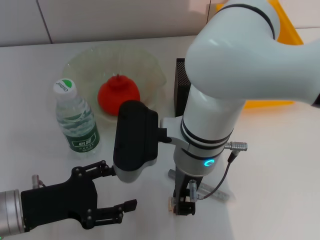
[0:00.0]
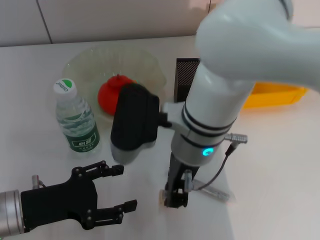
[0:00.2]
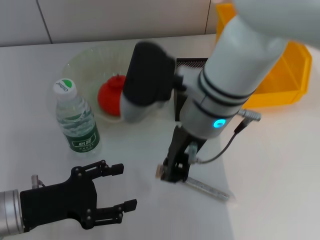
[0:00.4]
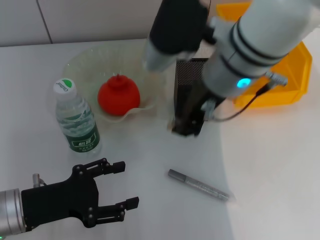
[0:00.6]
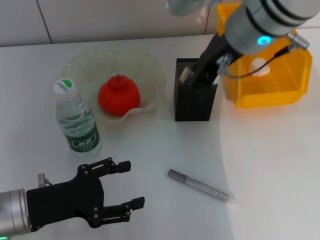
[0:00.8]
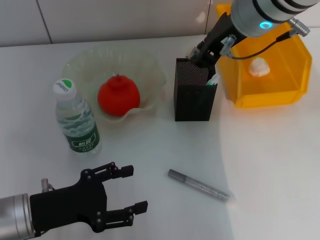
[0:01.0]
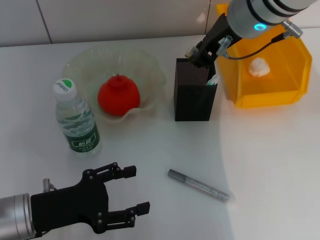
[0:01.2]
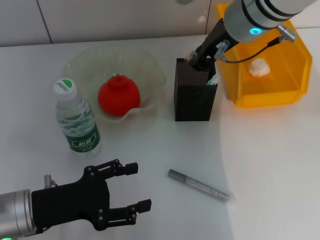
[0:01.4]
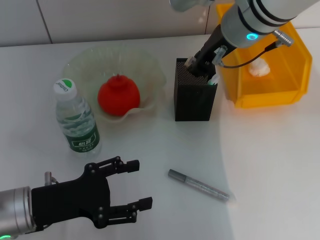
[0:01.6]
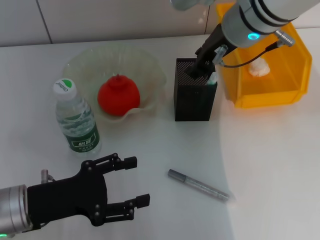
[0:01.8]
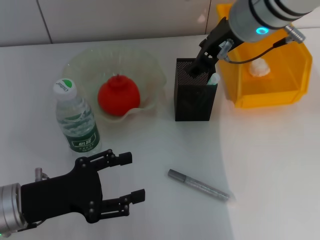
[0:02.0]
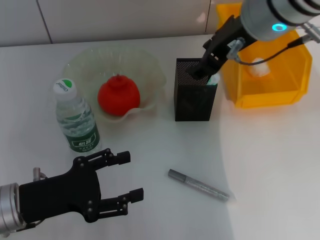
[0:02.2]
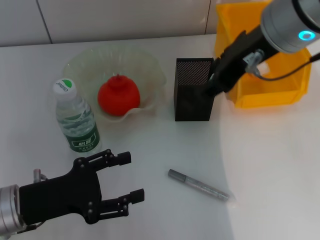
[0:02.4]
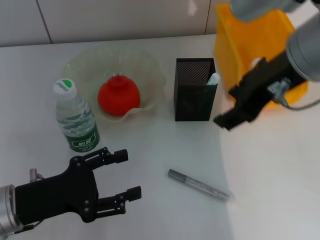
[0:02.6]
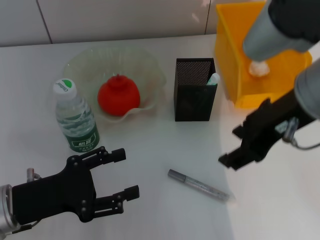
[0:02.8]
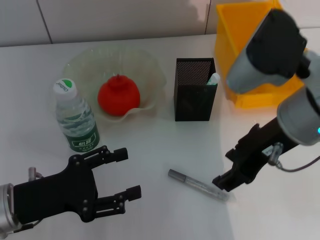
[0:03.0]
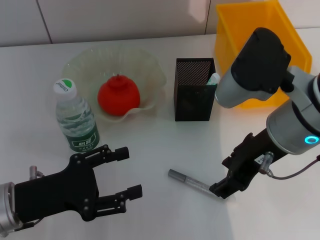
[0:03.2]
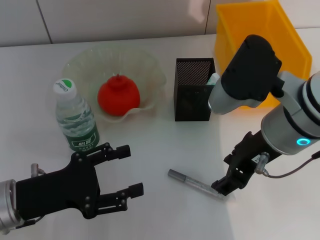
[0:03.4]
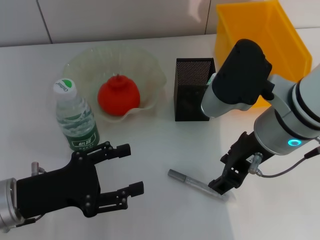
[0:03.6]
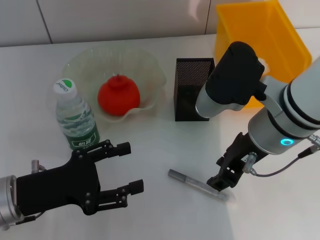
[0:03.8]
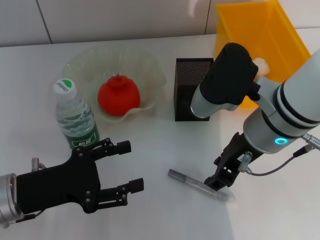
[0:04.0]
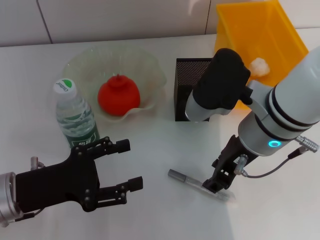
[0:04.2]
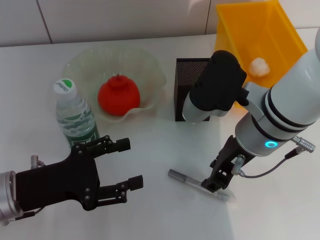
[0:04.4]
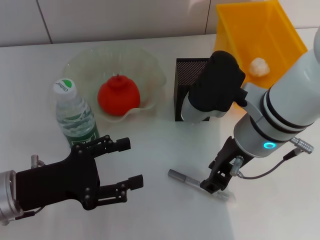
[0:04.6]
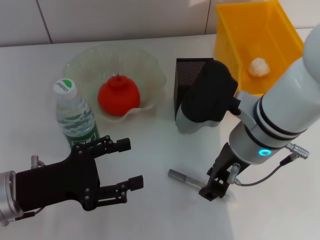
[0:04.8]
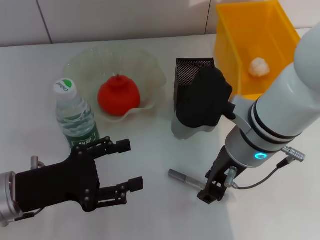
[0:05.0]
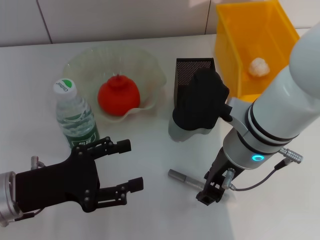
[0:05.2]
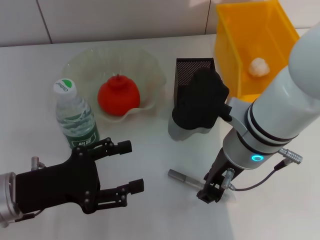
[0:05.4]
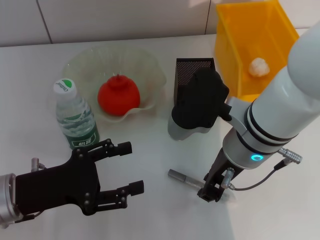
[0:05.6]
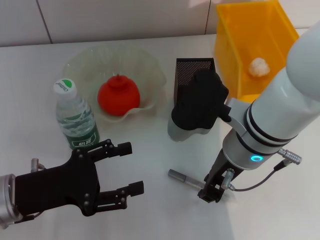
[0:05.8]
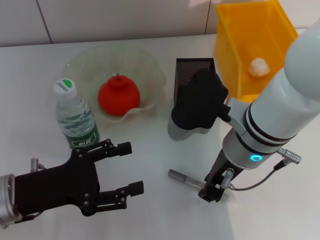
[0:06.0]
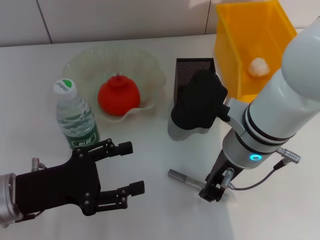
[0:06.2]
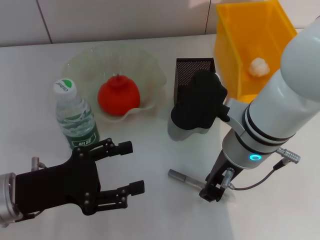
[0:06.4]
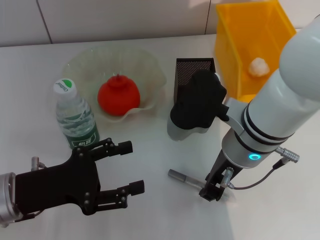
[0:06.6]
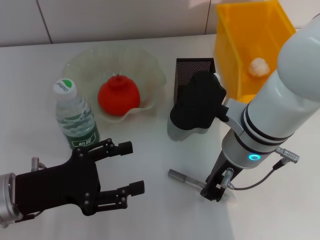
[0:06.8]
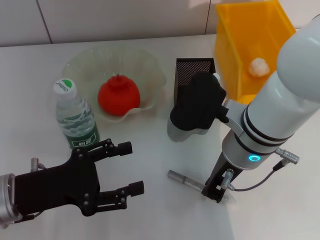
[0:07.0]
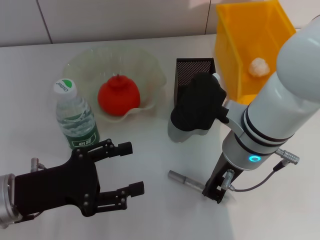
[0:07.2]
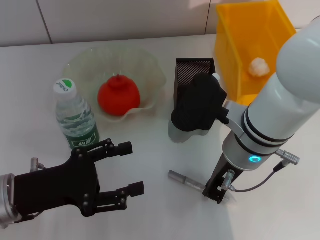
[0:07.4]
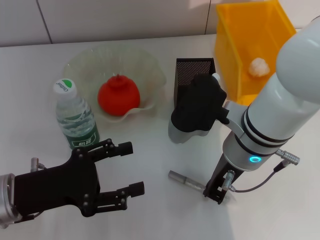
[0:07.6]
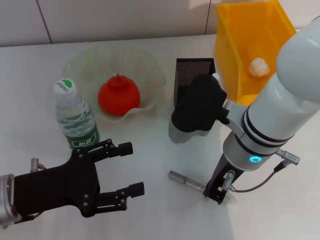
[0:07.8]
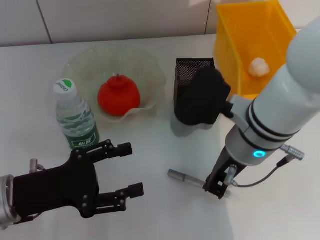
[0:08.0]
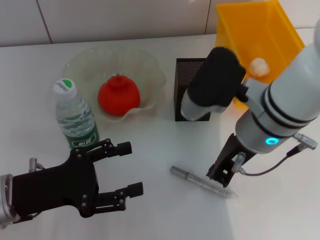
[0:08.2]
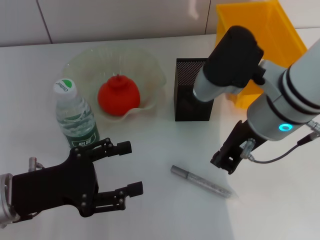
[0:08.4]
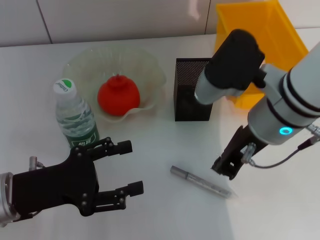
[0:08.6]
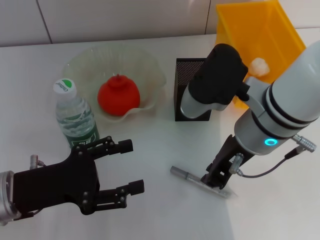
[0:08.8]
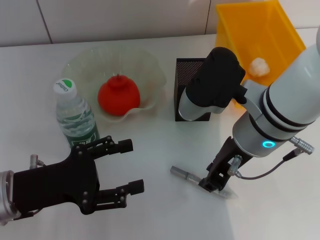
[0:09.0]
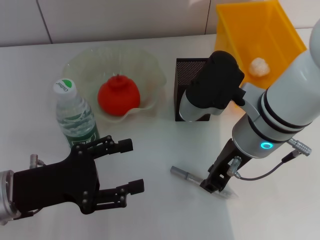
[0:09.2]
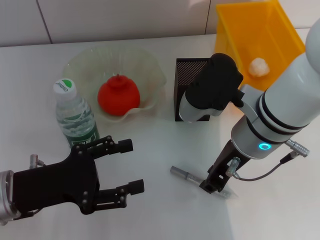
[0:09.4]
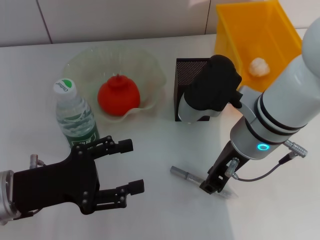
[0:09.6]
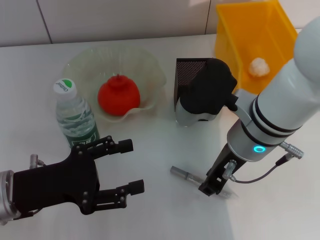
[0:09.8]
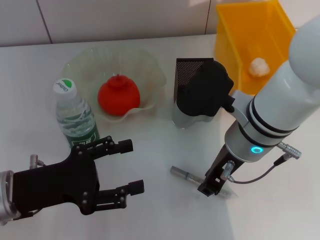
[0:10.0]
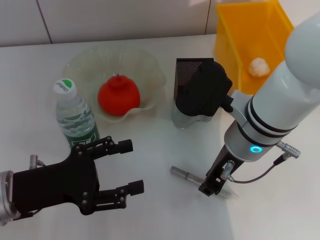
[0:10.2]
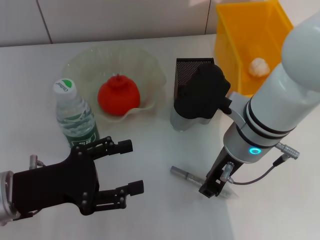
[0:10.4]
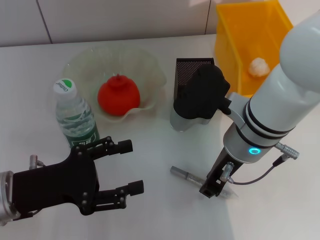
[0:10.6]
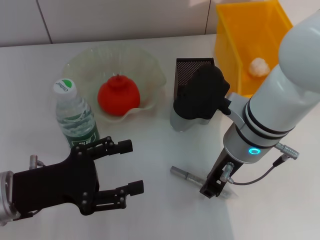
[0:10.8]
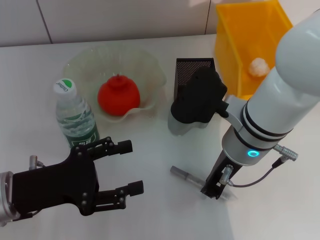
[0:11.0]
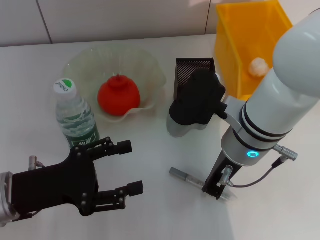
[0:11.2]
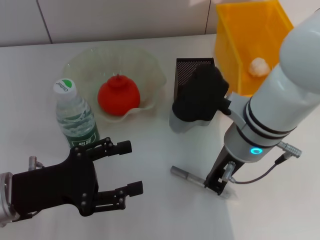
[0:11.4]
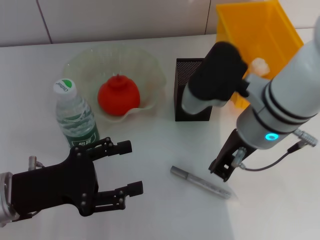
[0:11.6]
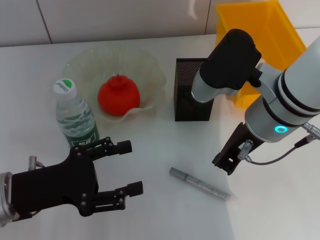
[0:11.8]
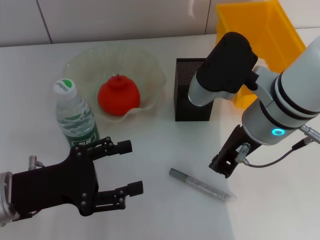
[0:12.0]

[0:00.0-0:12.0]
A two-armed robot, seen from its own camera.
Step, 0:00.0 to 0:01.6: Put the eraser into the pen holder with the right hand.
0:00.0 to 0:01.6: The right gripper heads forward, upward and to the right, covering approximately 15 cm.
0:01.6 to 0:03.0: The right gripper shifts some 10 cm backward, and opens.
0:03.0 to 0:04.4: The right gripper heads downward, covering some 5 cm.
0:04.4 to 0:06.0: There are only small adjustments of the grippers.
0:06.0 to 0:07.6: Neither gripper changes place.
0:07.6 to 0:12.0: There are only small adjustments of the grippers.

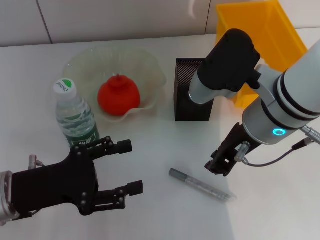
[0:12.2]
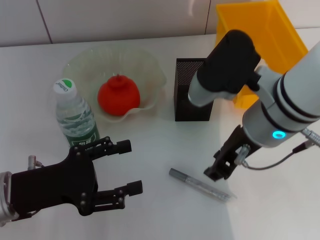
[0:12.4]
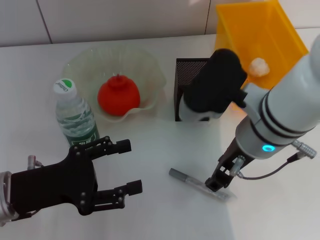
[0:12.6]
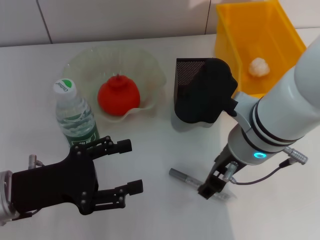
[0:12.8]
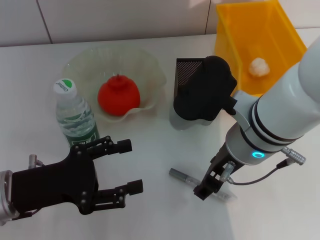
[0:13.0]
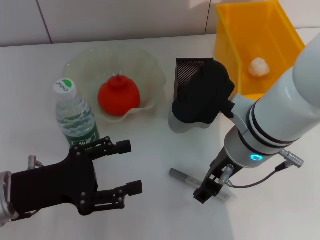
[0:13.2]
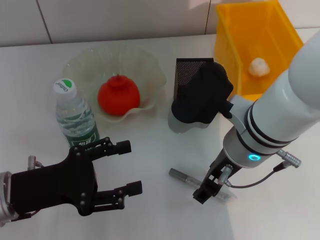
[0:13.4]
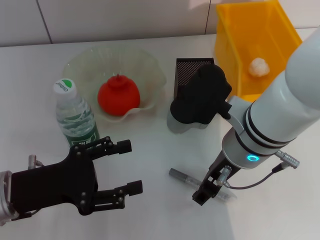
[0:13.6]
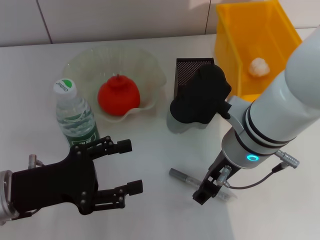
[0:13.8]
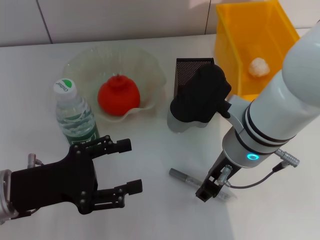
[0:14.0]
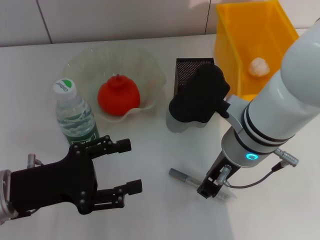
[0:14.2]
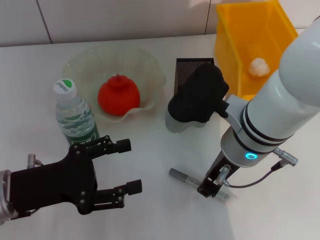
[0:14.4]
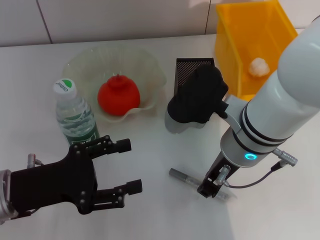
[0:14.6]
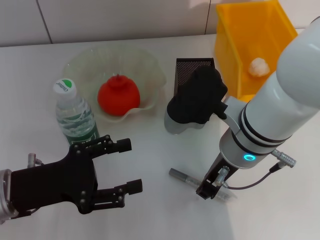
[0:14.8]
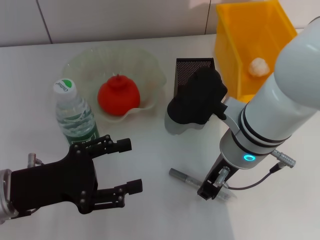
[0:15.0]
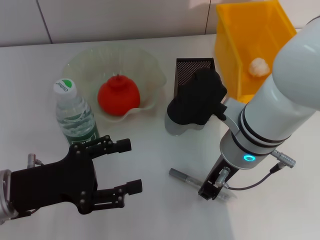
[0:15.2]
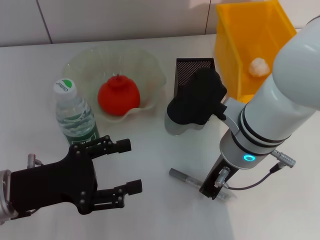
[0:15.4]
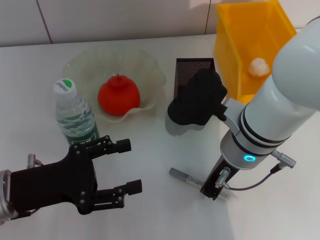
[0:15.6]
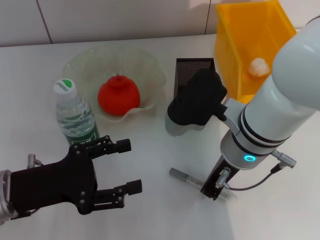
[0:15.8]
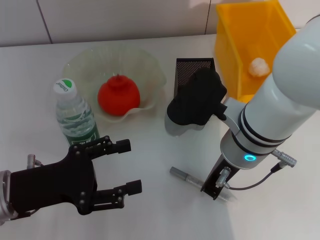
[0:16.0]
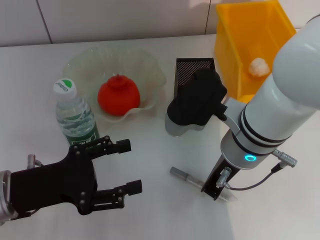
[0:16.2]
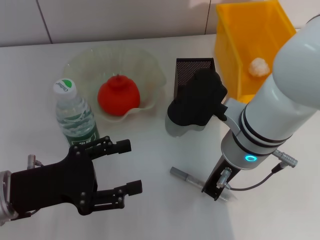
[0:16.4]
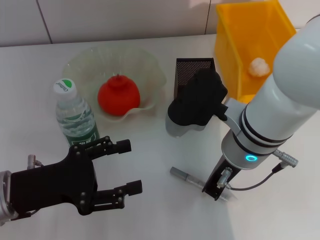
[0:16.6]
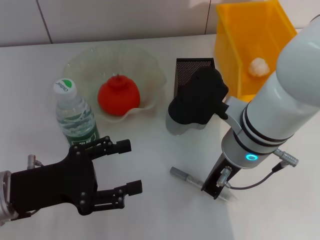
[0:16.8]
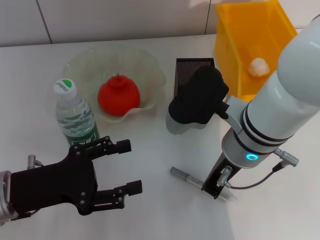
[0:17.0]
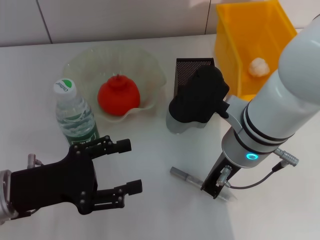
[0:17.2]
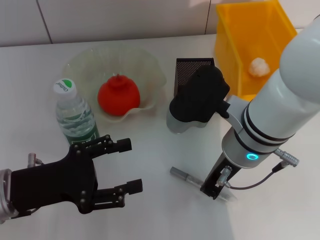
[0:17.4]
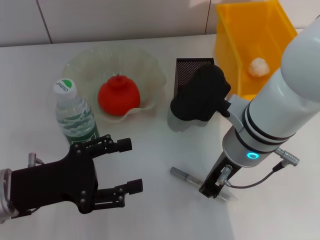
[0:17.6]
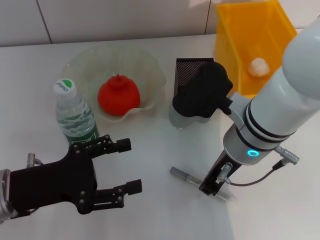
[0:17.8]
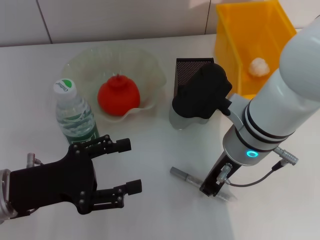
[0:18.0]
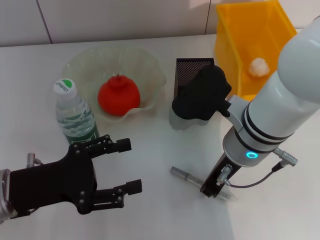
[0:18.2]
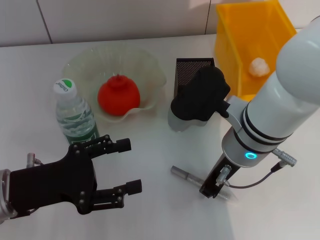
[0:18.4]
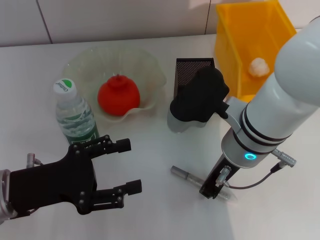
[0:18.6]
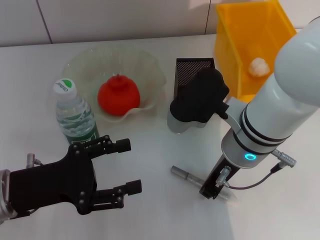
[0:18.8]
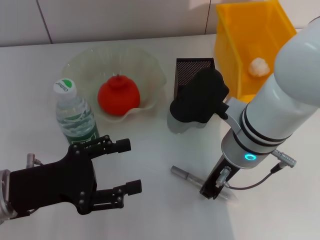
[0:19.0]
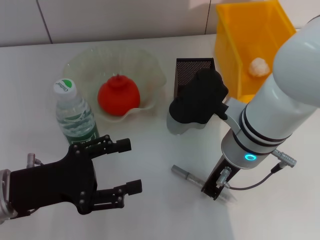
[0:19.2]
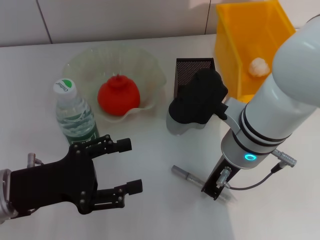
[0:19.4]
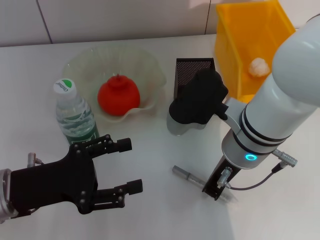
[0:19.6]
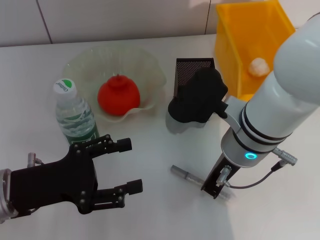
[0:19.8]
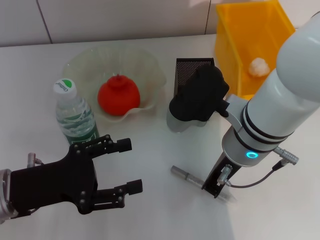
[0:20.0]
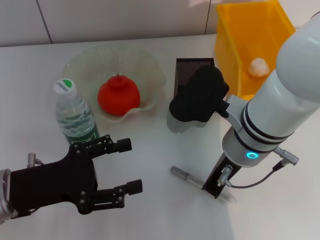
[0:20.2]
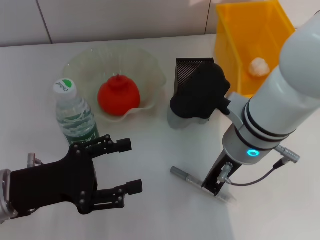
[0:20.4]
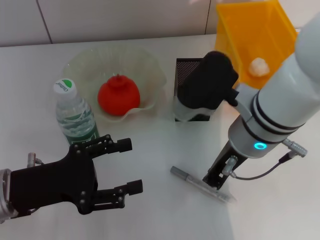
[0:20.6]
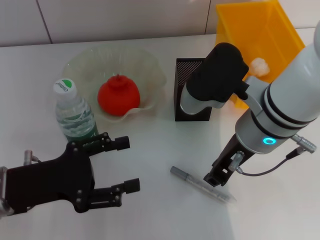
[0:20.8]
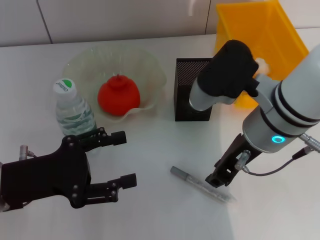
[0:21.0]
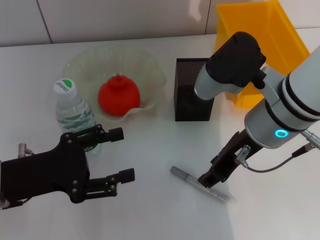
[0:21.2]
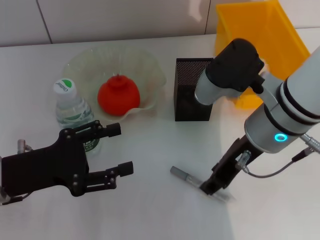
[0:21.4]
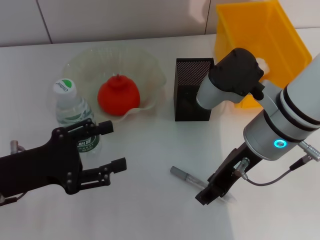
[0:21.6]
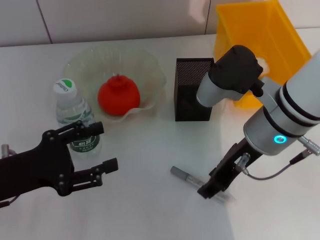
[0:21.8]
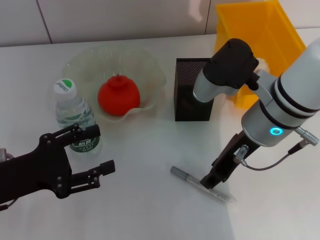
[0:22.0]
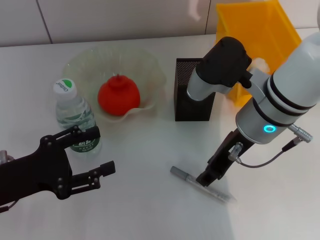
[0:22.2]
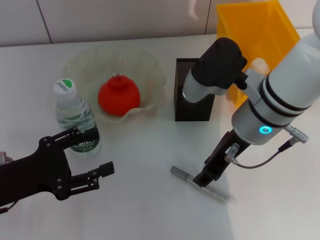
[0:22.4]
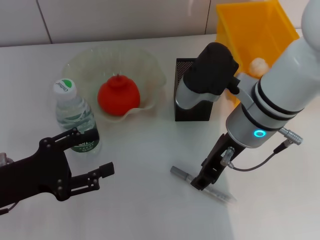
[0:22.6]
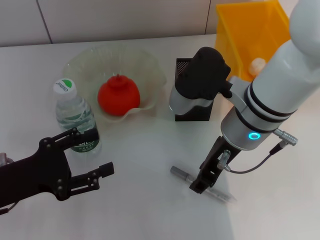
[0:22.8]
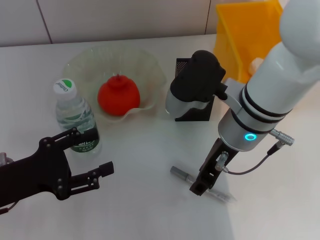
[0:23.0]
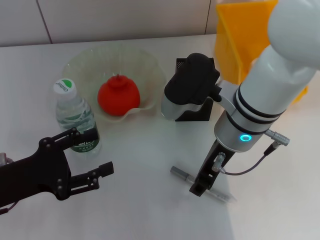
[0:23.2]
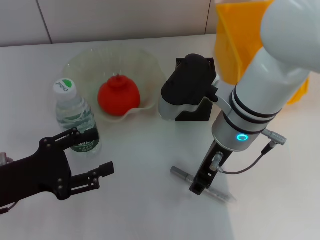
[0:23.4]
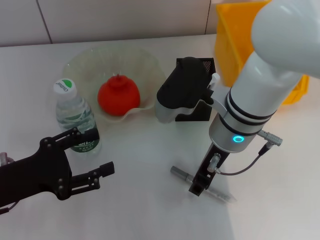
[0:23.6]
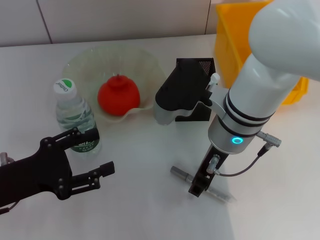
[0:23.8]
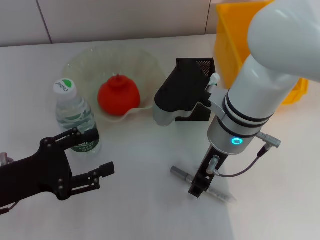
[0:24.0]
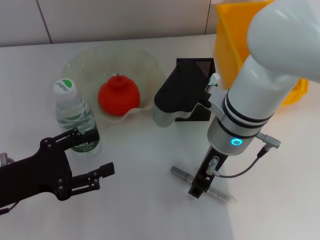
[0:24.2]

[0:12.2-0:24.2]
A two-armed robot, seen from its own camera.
0:12.2 to 0:13.8: The right gripper opens.
0:13.8 to 0:15.2: The right gripper closes its fingers.
0:15.2 to 0:16.6: The right gripper closes up.
0:16.6 to 0:19.8: Neither gripper changes place.
0:21.2 to 0:22.6: The grippers make only small movements.
0:22.6 to 0:24.2: The grippers make only small movements.
